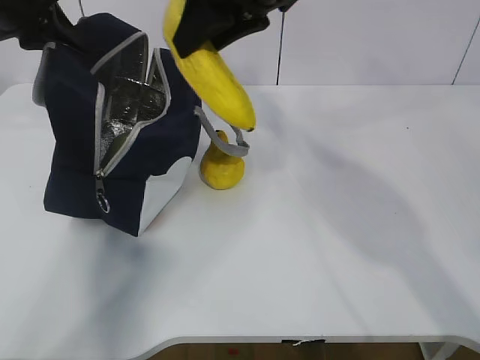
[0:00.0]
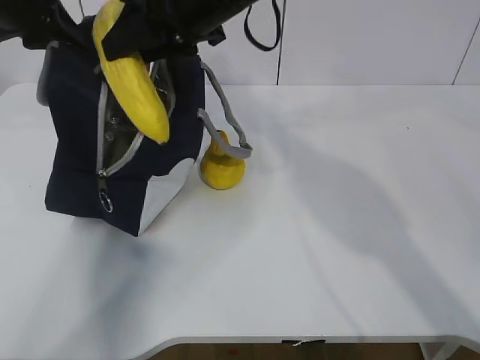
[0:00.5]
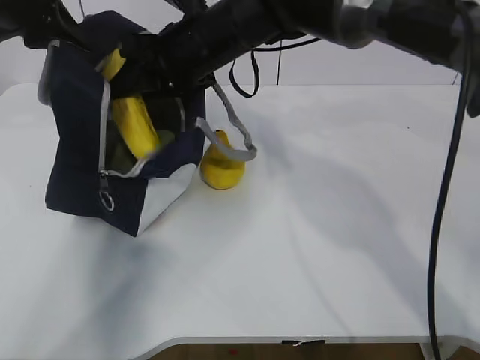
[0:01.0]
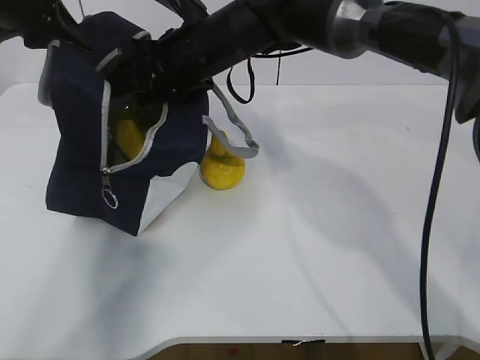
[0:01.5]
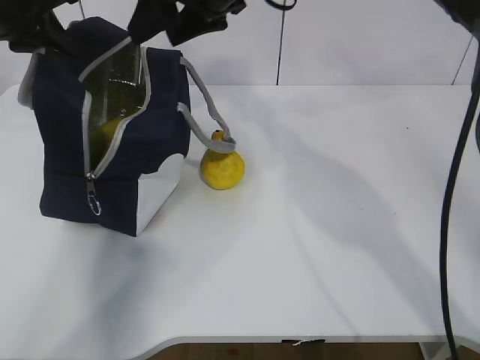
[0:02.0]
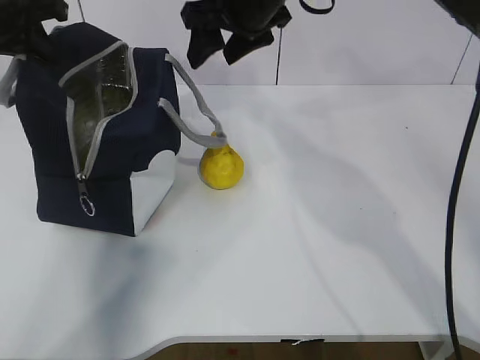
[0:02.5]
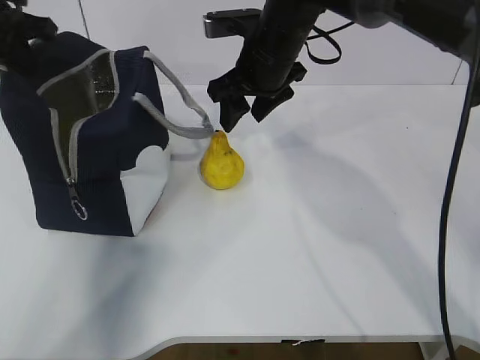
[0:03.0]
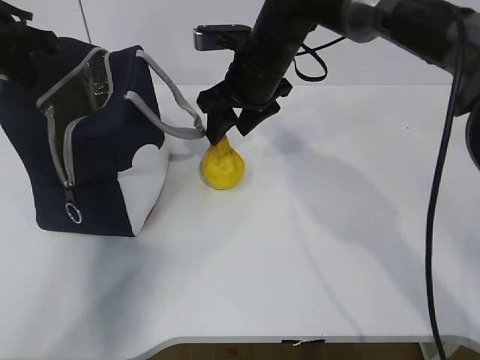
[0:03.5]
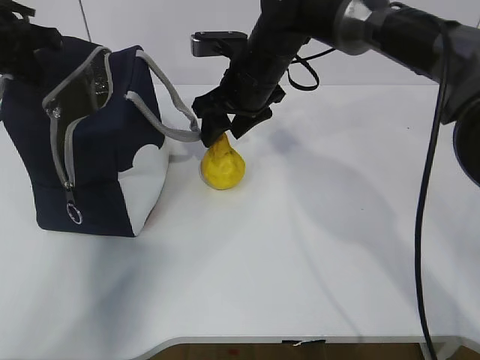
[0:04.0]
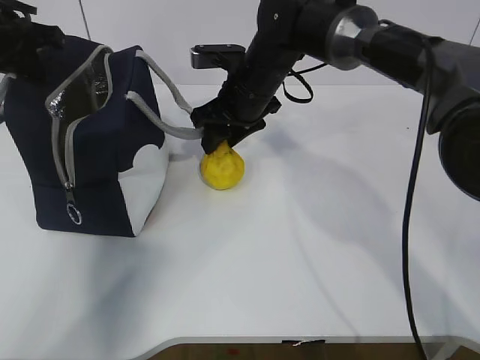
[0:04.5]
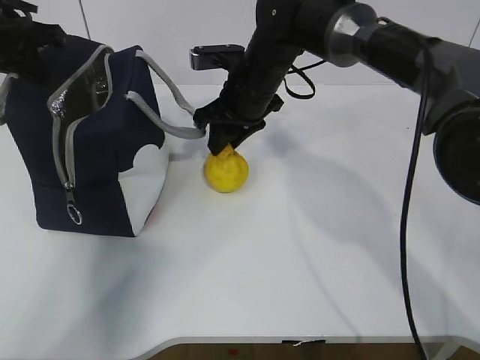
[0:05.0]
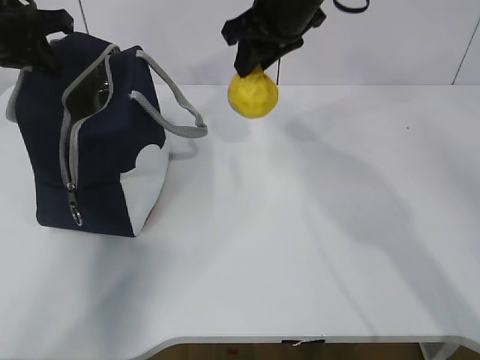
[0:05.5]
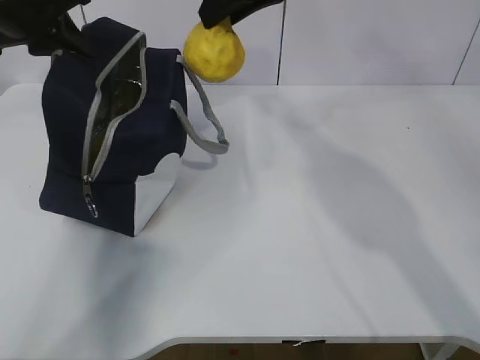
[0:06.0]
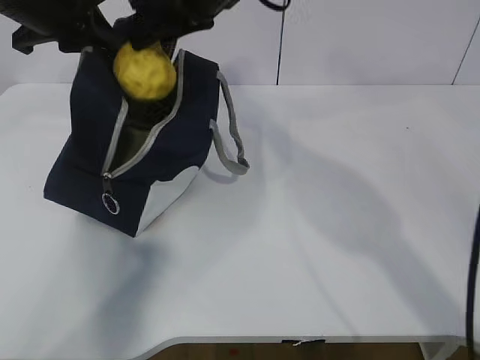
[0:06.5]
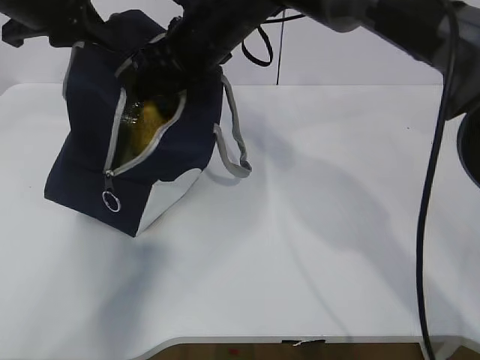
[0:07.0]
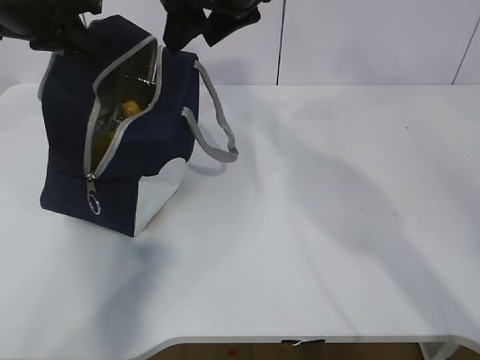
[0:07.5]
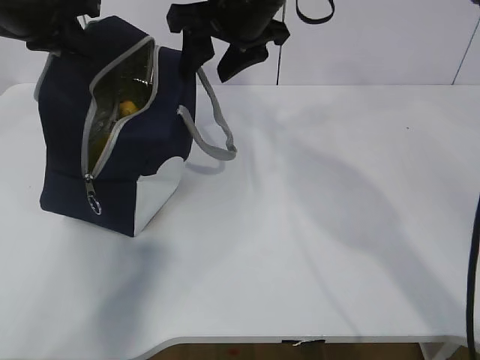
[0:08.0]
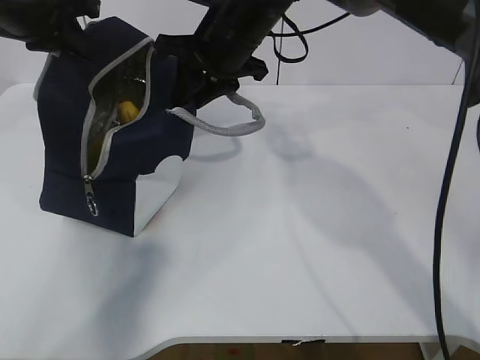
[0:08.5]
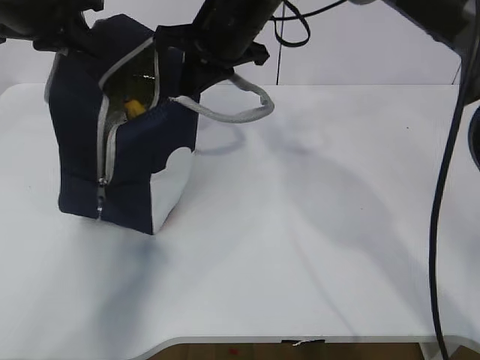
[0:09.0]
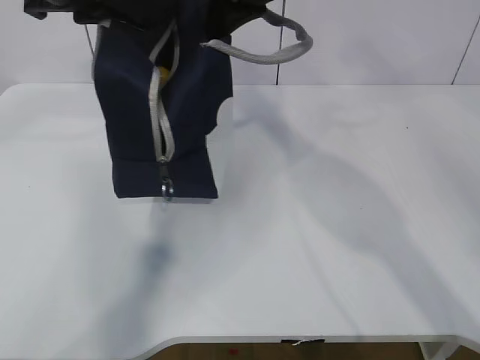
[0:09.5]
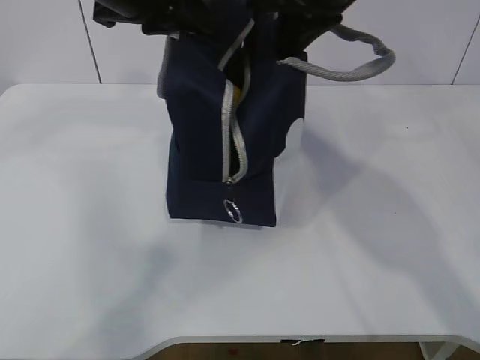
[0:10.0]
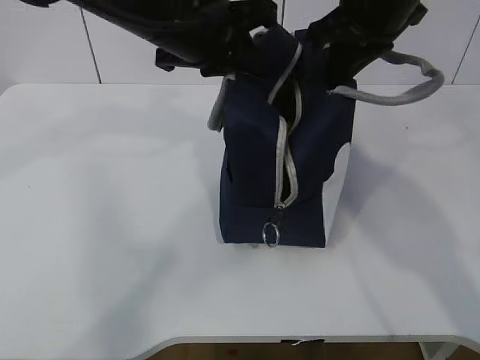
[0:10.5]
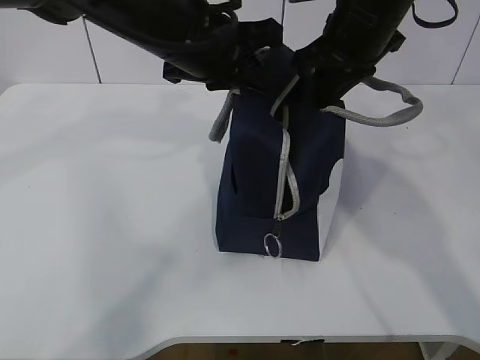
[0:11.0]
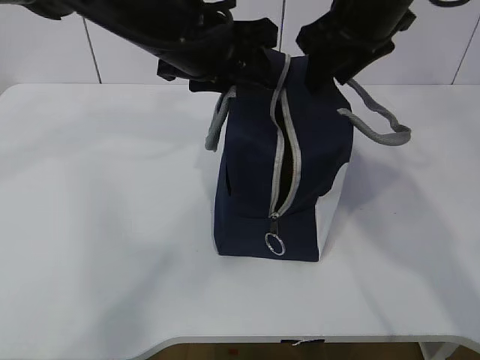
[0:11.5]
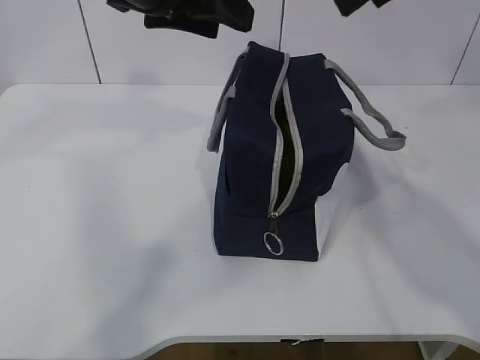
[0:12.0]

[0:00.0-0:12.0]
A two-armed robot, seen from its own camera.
Step, 0:02.5 to 0:03.5: Grab the lunch bag with your right hand.
Step, 0:04.0 to 0:05.5: Move the lunch bag to the right.
0:00.0 to 0:02.0: The right gripper goes about 5 cm forward, goes downward and returns, roughly 10 cm each way, and opens up.
0:02.0 to 0:04.0: The right gripper goes about 10 cm downward.
0:04.0 to 0:06.0: The right gripper heads upward, covering about 15 cm, and closes.
0:06.0 to 0:08.0: The right gripper moves downward, roughly 5 cm, and opens its fingers.
0:08.0 to 0:10.0: The right gripper is displaced to the right by roughly 5 cm, and closes; the left gripper goes some 15 cm to the right and backward.
0:10.0 to 0:12.0: The right gripper is displaced to the right by approximately 5 cm, and opens. Meanwhile the left gripper opens.

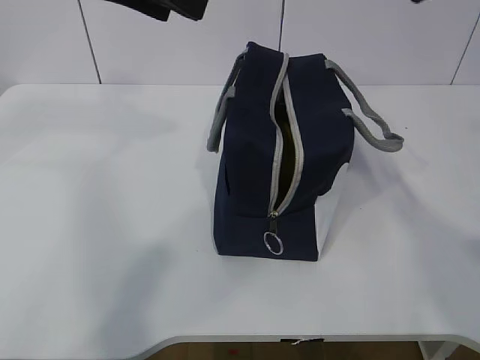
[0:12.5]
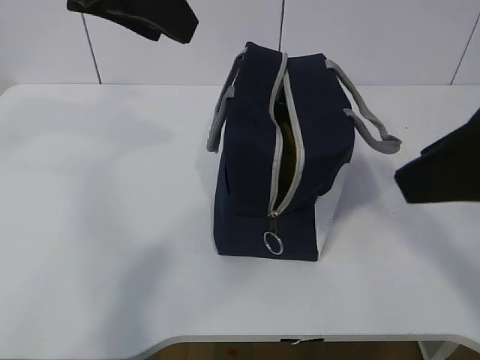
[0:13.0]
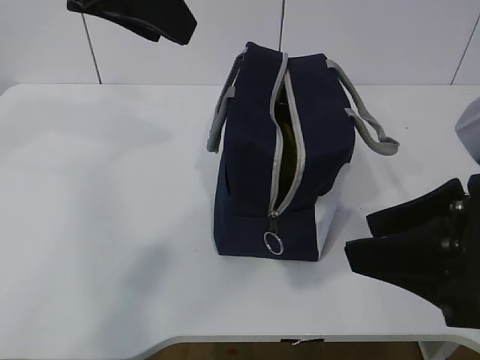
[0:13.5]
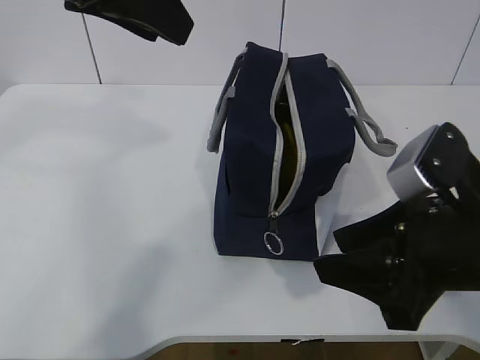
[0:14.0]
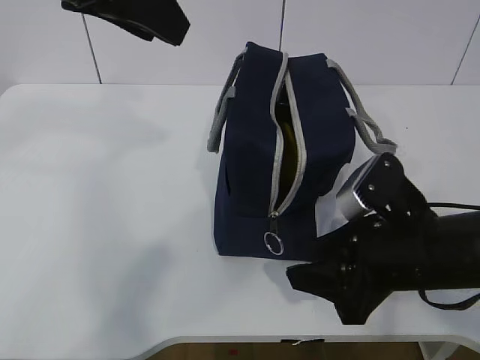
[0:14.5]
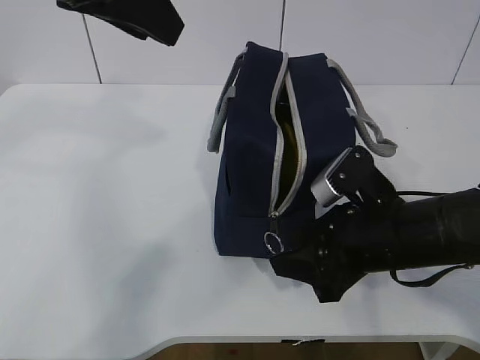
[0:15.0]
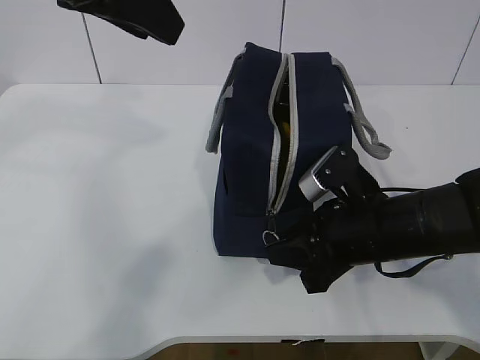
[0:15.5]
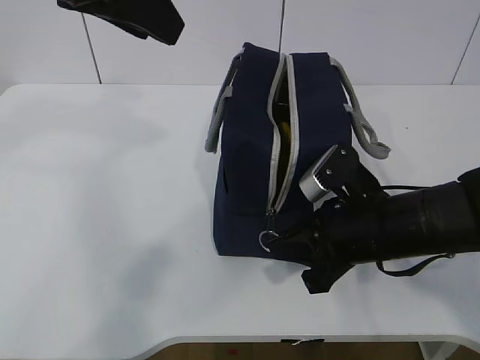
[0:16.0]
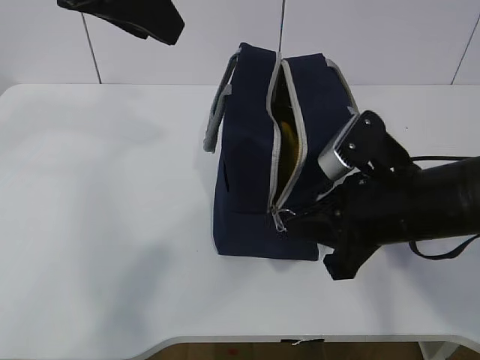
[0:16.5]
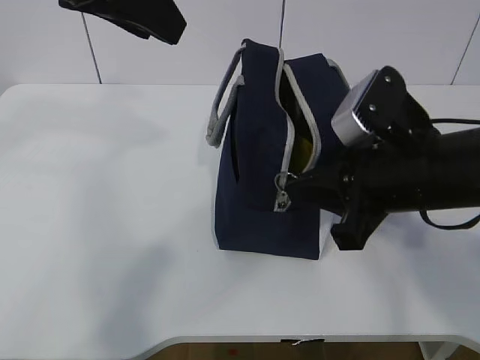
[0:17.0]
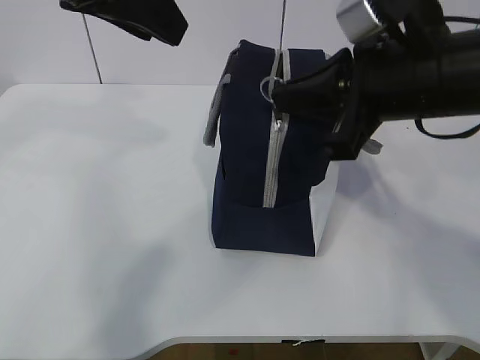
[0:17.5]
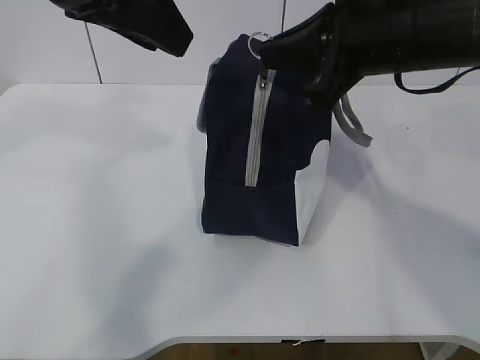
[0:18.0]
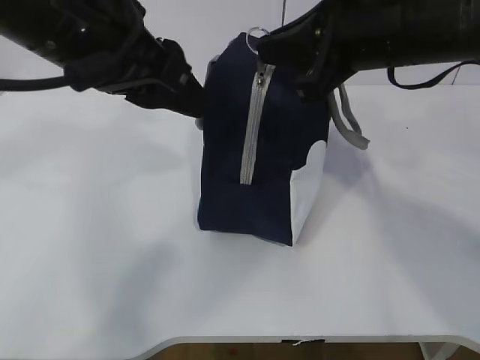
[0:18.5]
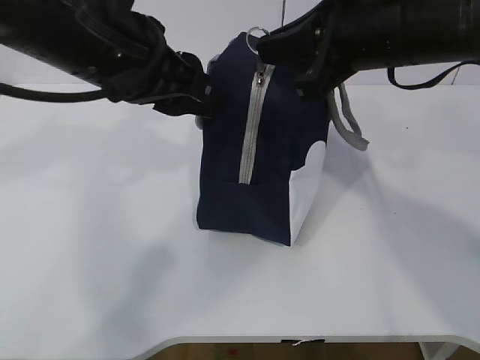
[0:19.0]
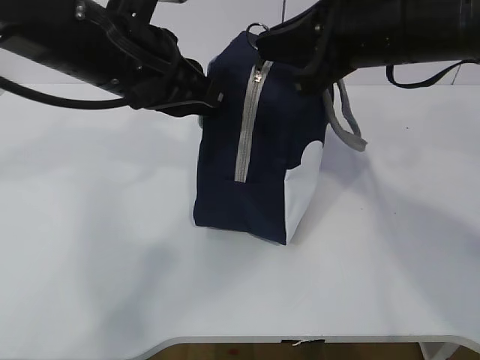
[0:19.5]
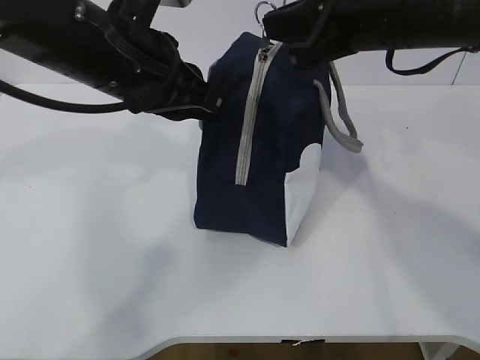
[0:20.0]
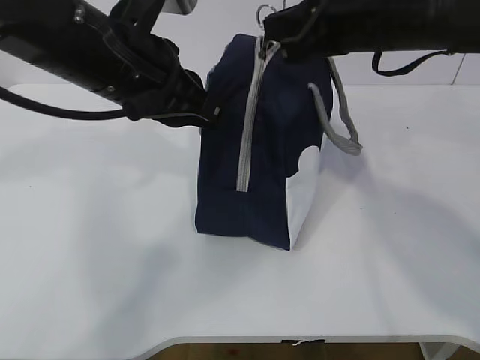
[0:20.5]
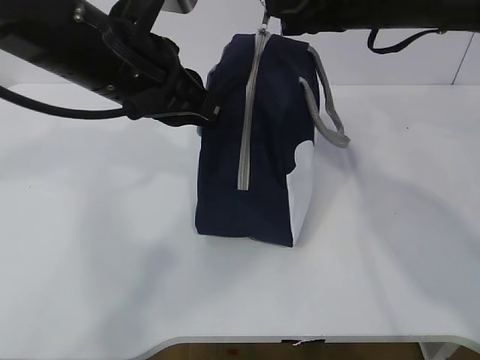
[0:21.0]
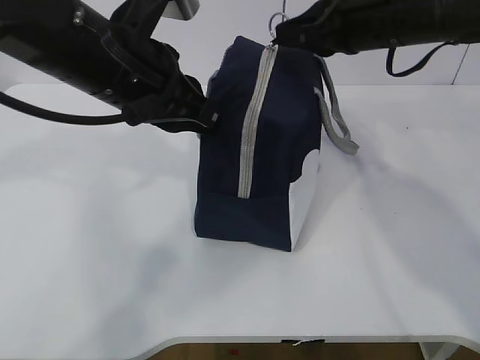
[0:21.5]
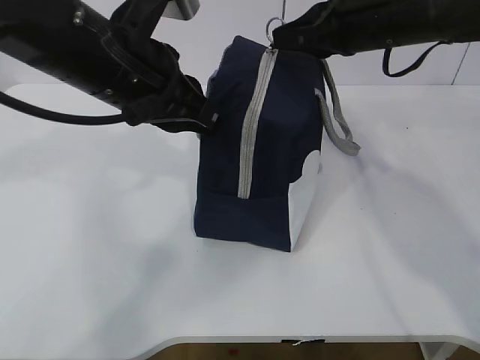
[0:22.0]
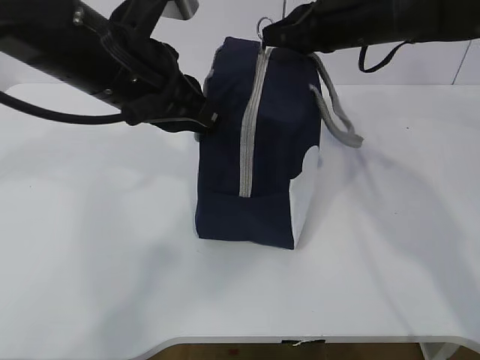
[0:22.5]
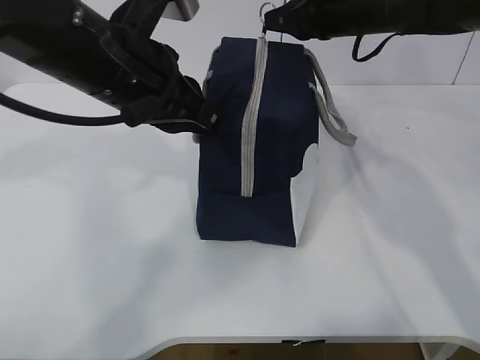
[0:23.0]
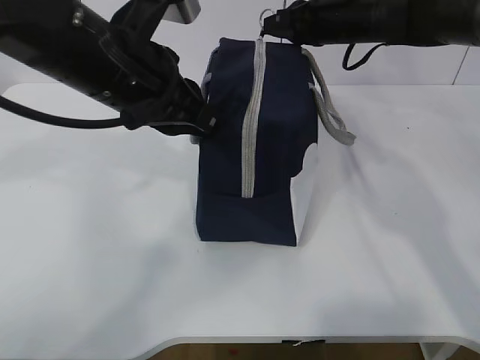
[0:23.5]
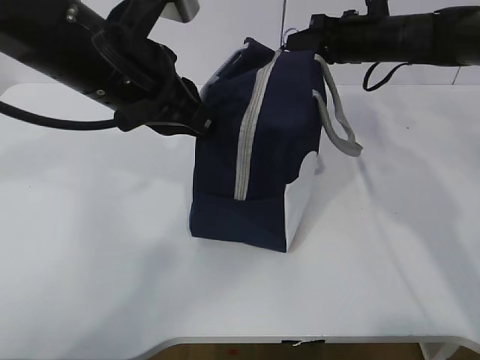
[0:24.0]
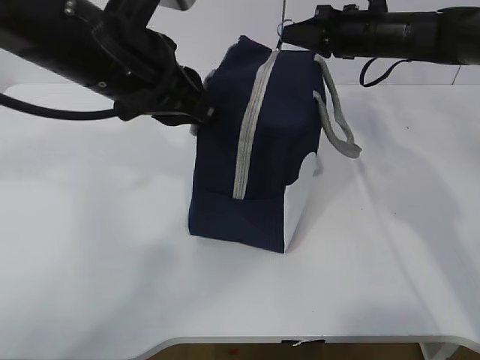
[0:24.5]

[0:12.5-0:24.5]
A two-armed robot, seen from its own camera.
Step, 0:17.0 to 0:21.0: Pull the zipper with your right hand.
0:12.5 to 0:14.5: The right gripper is displaced downward by roughly 30 cm.
0:14.5 to 0:16.5: The right gripper closes its fingers.
0:16.5 to 0:18.5: The left gripper is displaced downward by about 5 cm, while the right gripper goes about 15 cm upward and forward.
0:18.5 to 0:20.5: The left gripper ends up some 5 cm from where it was, and closes its fingers.
0:20.5 to 0:22.5: The right gripper travels forward by approximately 10 cm.
0:22.5 to 0:24.5: The right gripper goes some 10 cm forward, to the right and downward.

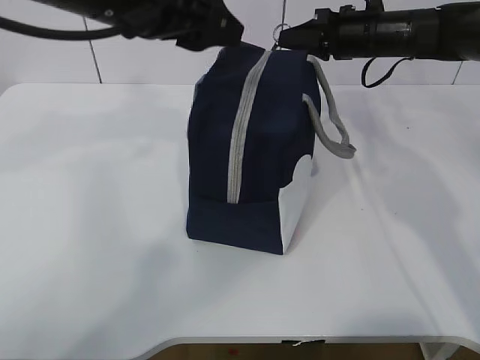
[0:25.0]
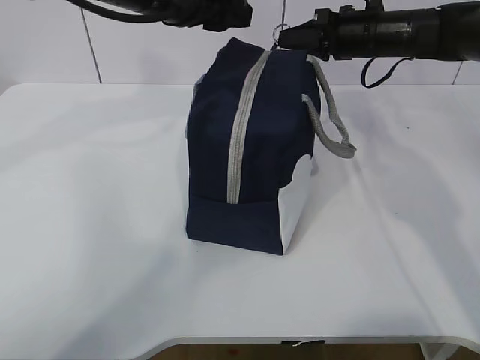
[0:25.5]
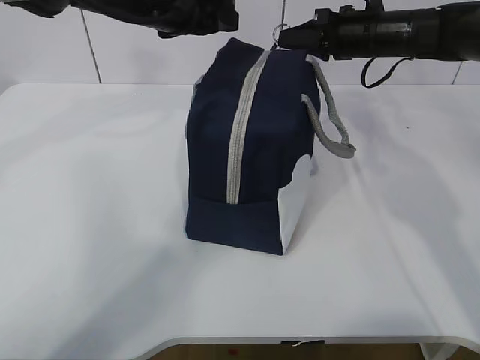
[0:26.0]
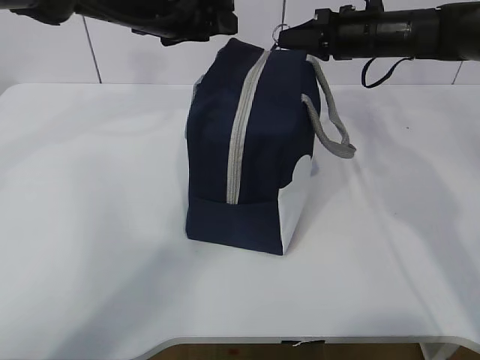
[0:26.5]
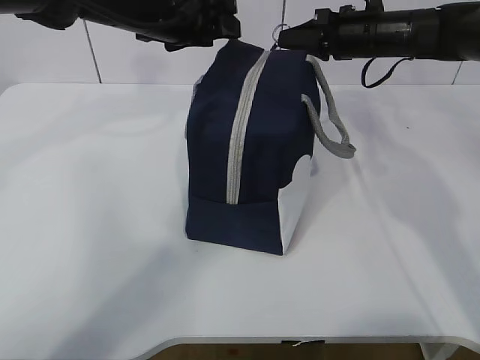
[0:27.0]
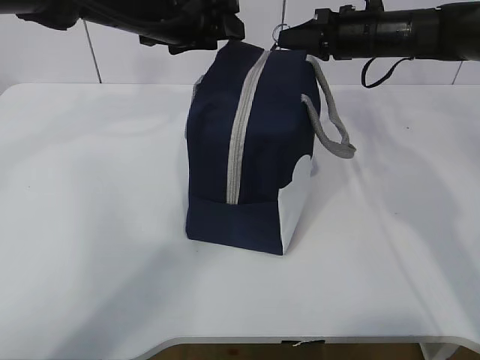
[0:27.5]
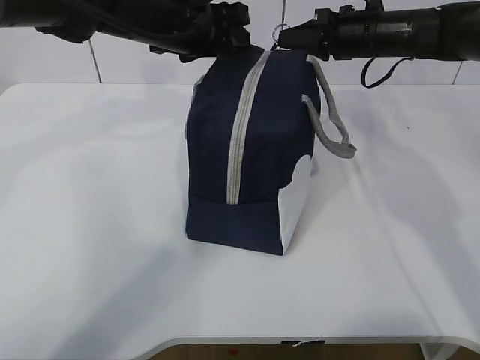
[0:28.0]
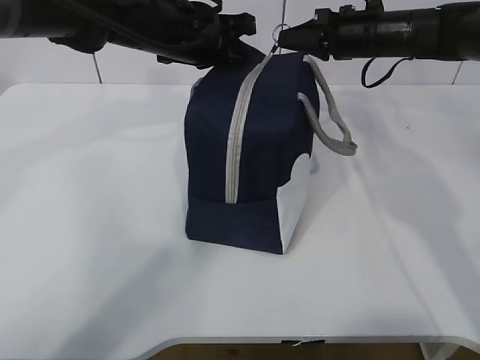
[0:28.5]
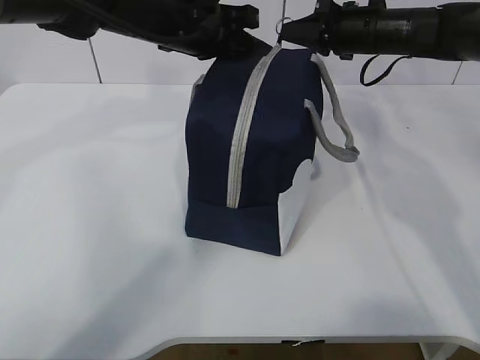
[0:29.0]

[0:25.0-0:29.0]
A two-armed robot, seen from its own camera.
0:25.0 to 0:27.0: The left gripper goes some 10 cm forward.
0:27.0 to 0:29.0: The left gripper closes its fingers.
